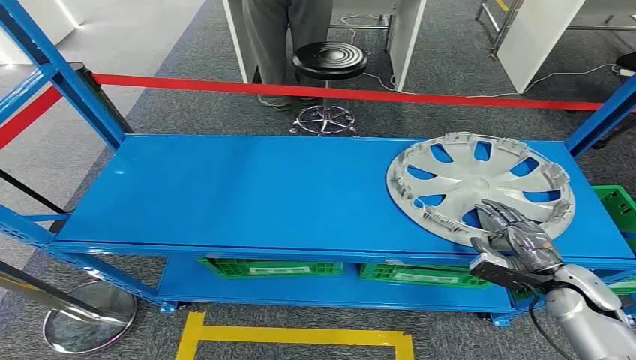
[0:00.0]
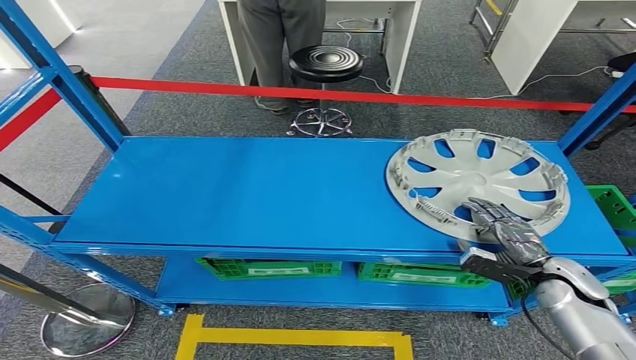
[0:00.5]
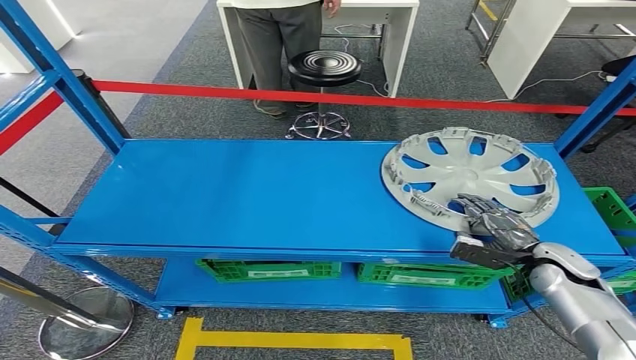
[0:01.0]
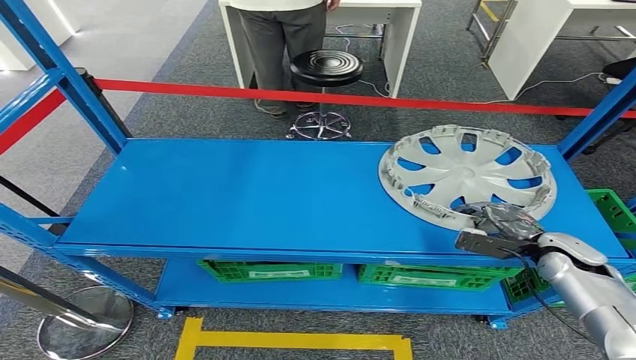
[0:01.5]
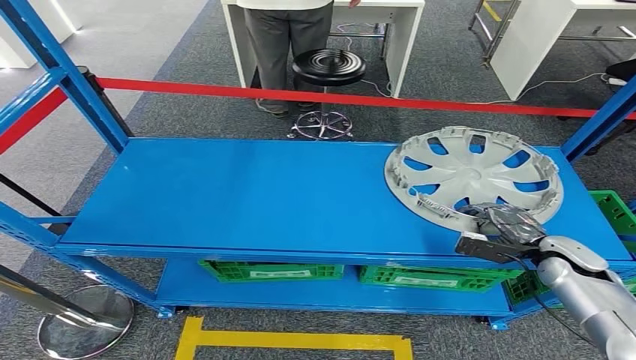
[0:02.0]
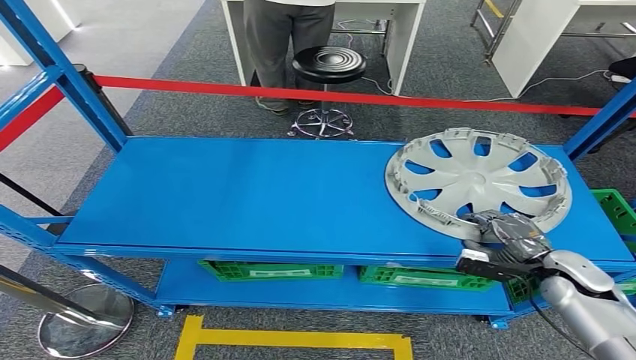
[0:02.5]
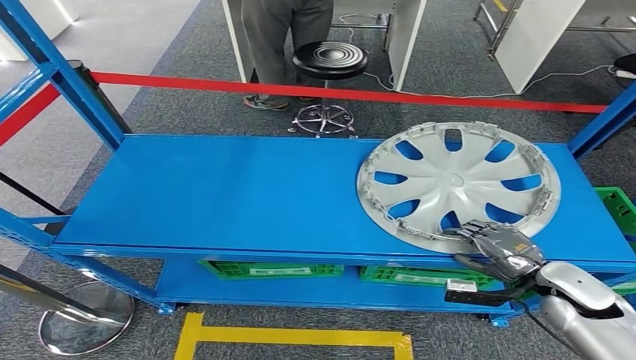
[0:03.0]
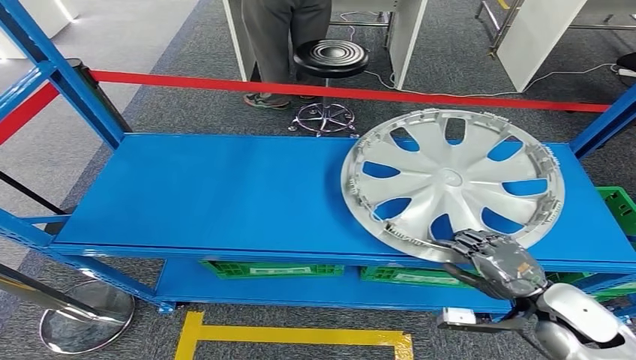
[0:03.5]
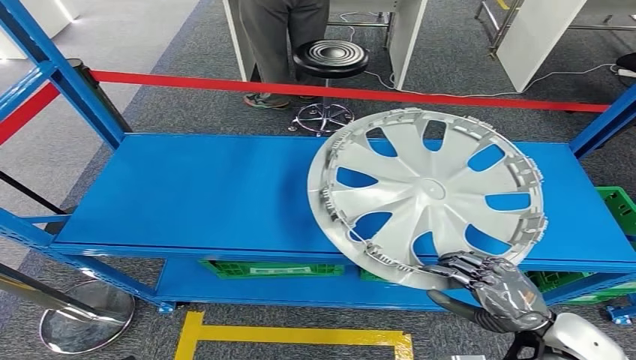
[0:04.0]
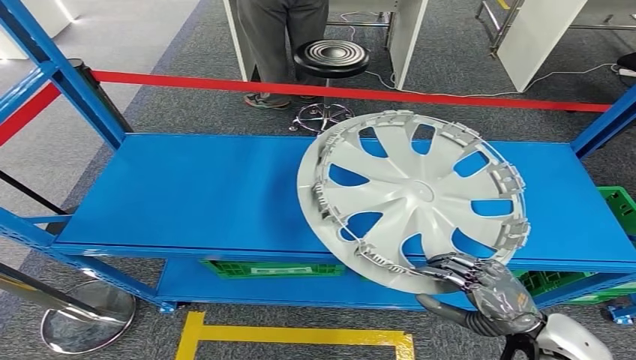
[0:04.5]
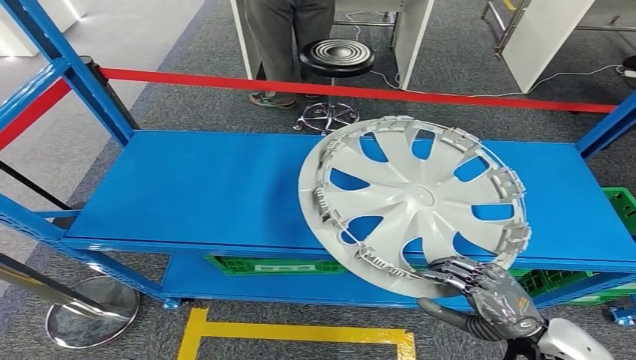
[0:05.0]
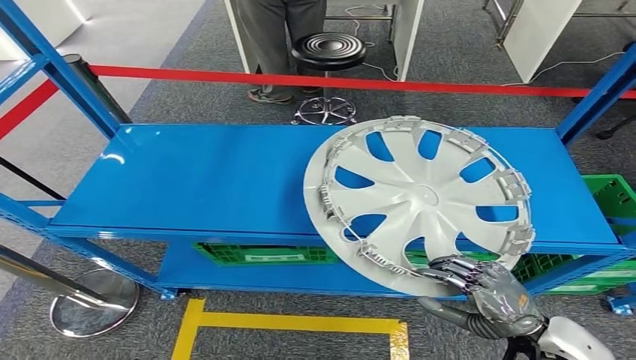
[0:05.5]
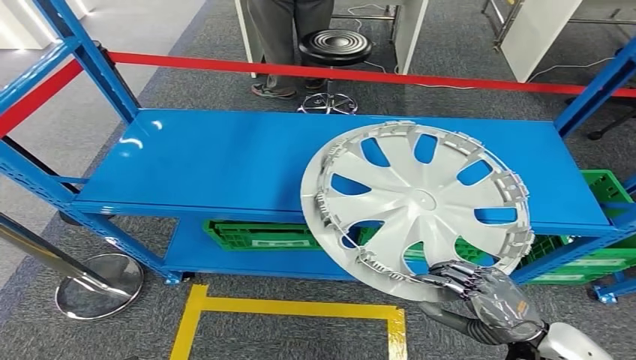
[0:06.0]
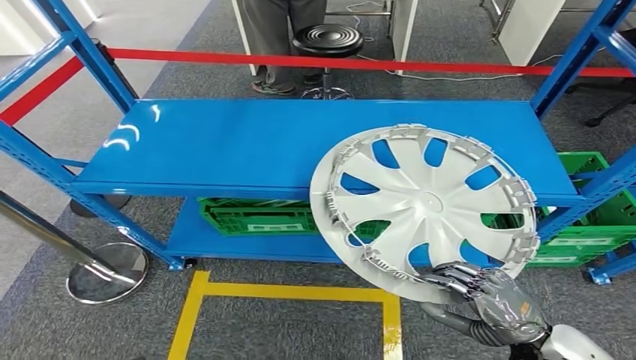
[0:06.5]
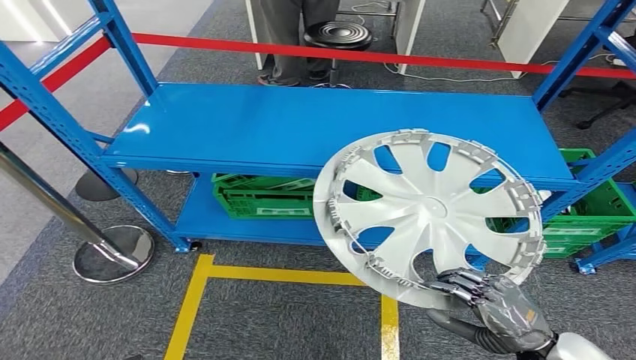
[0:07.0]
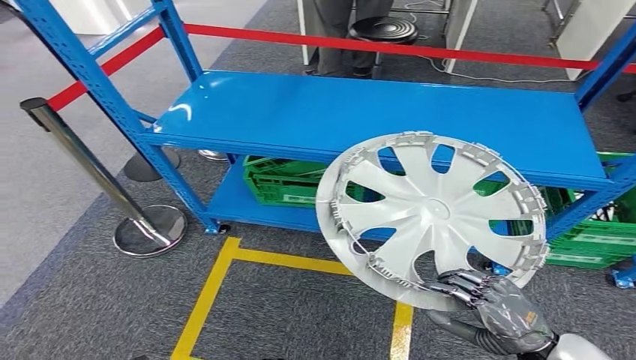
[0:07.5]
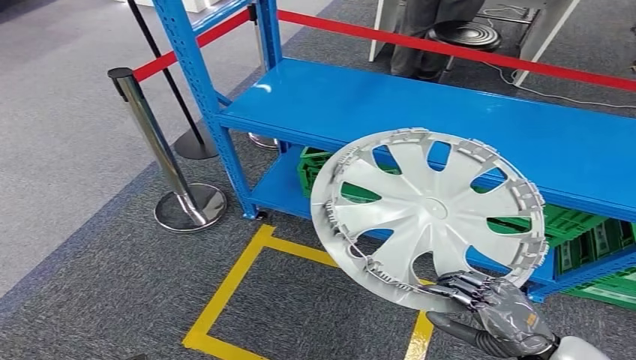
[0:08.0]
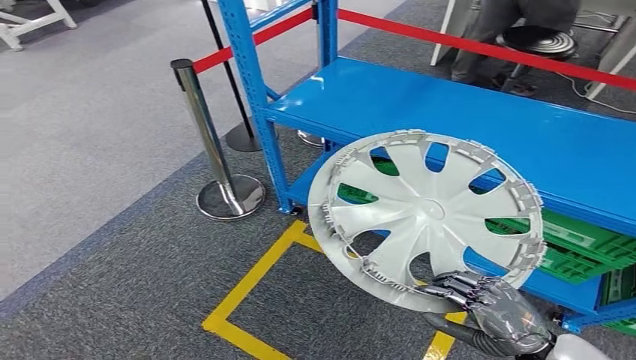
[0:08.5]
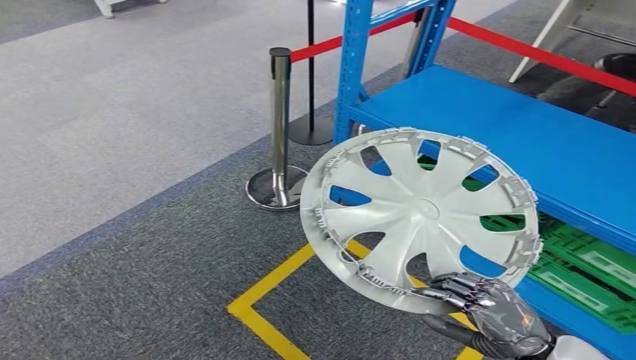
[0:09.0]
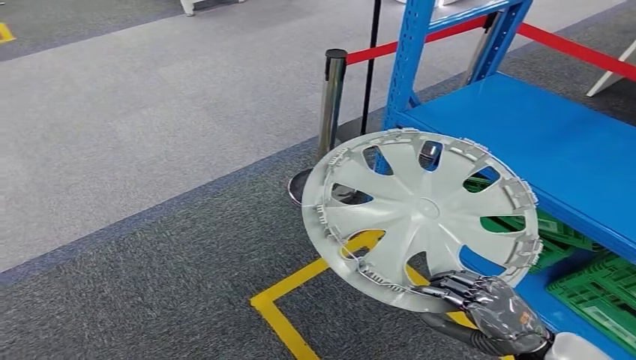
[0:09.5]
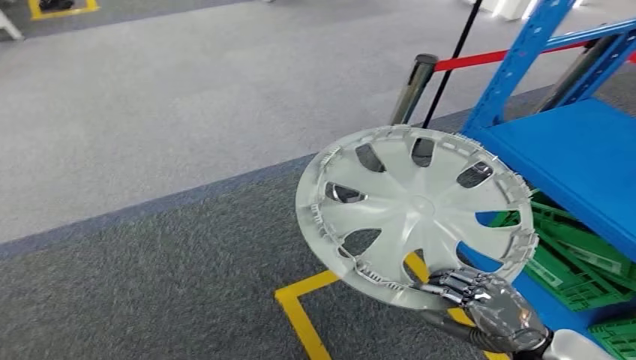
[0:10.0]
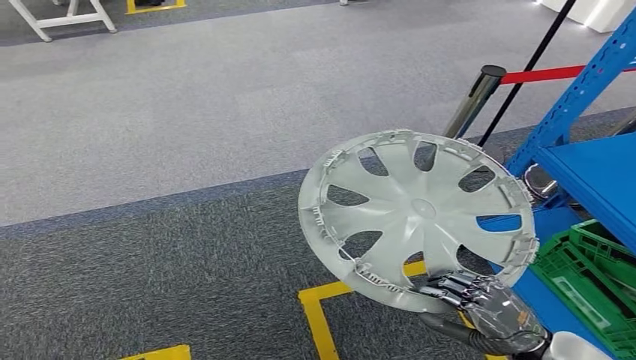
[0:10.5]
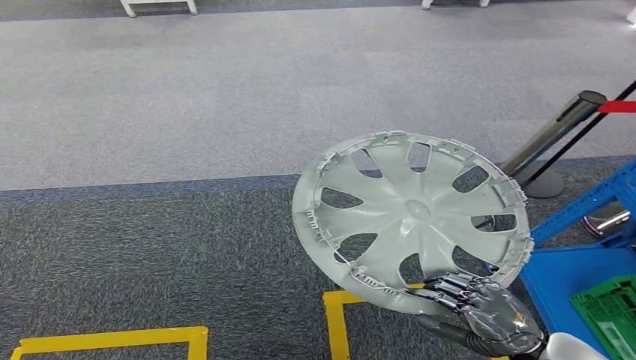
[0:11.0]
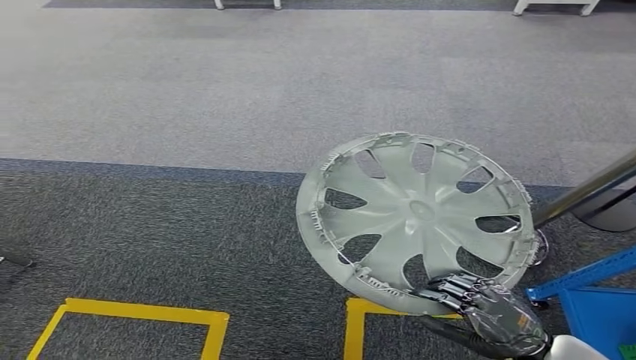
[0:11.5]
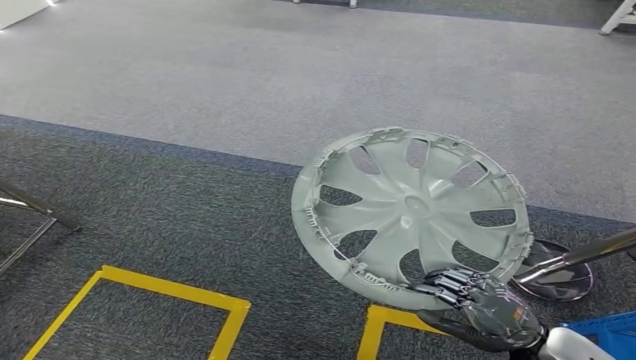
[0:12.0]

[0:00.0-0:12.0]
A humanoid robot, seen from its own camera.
Step, 0:00.0 to 0:06.5: Pick up the small component from the shelf.

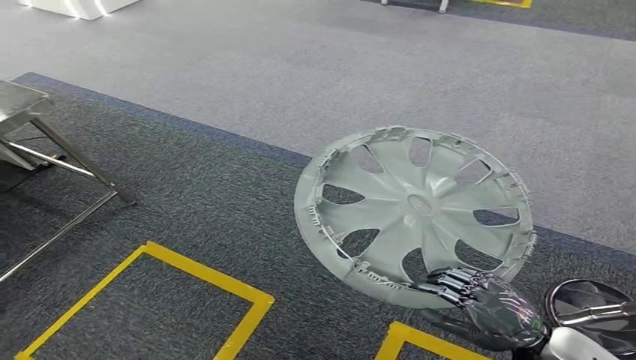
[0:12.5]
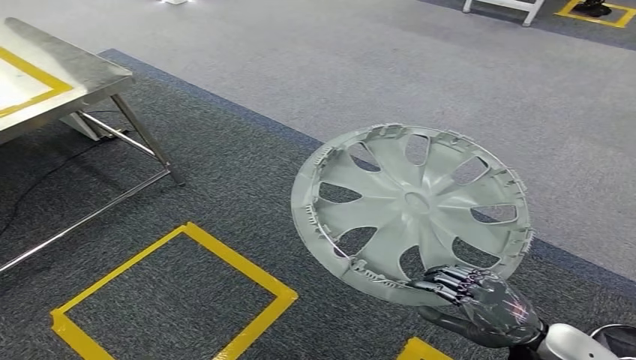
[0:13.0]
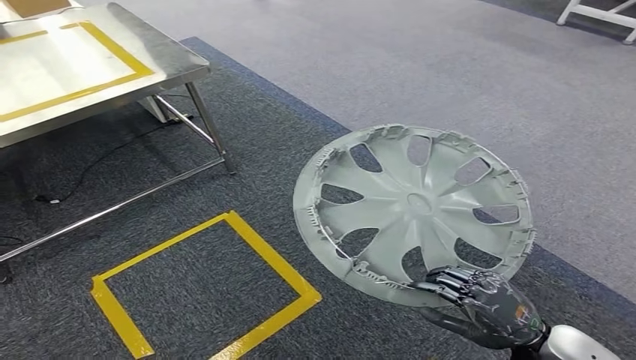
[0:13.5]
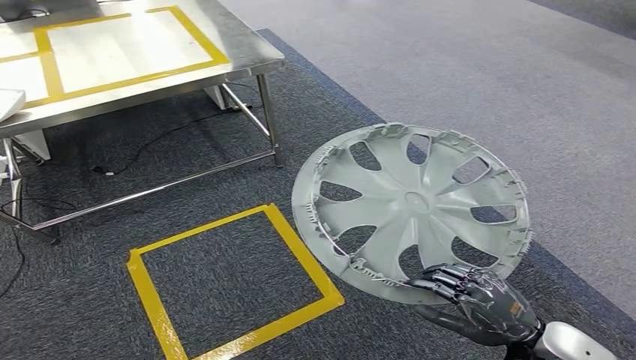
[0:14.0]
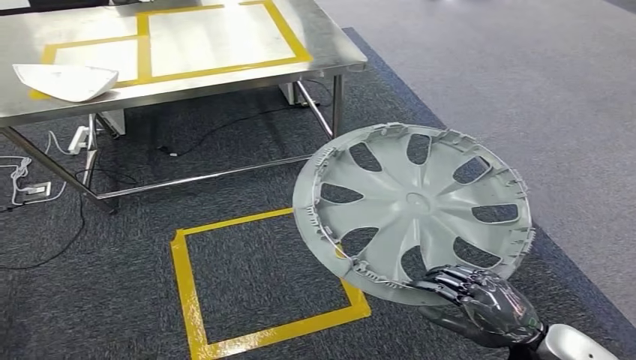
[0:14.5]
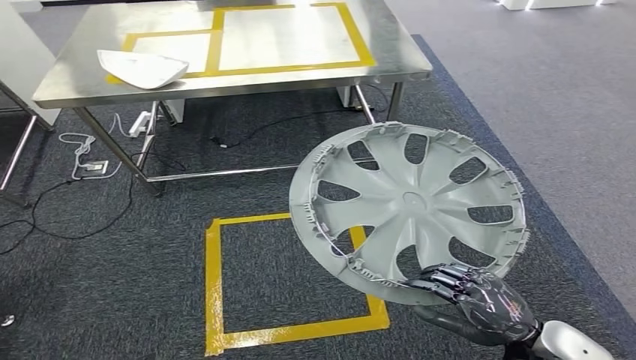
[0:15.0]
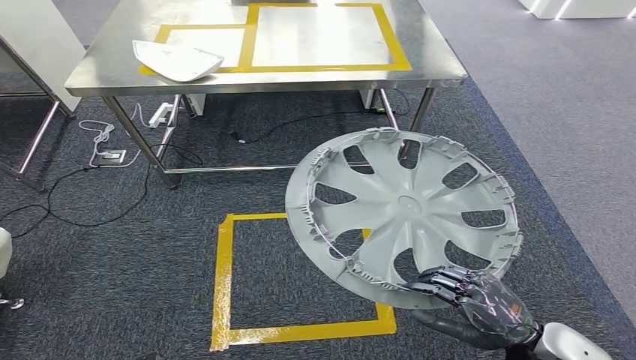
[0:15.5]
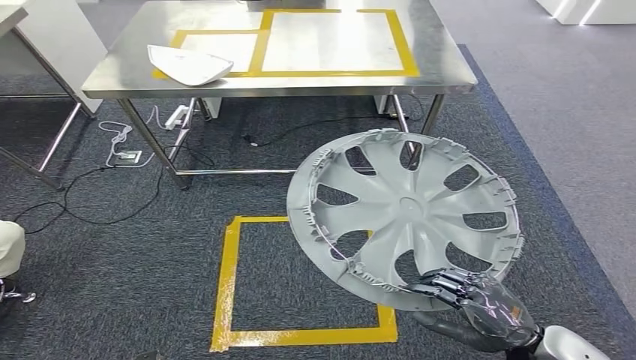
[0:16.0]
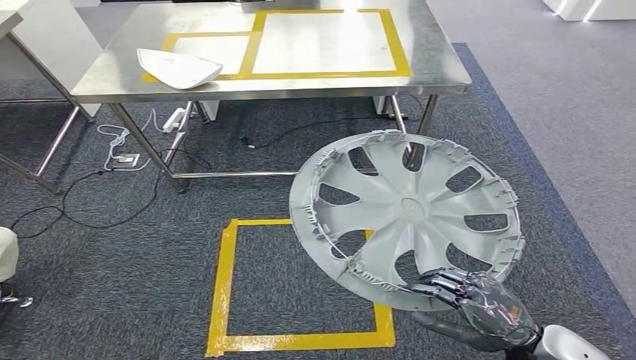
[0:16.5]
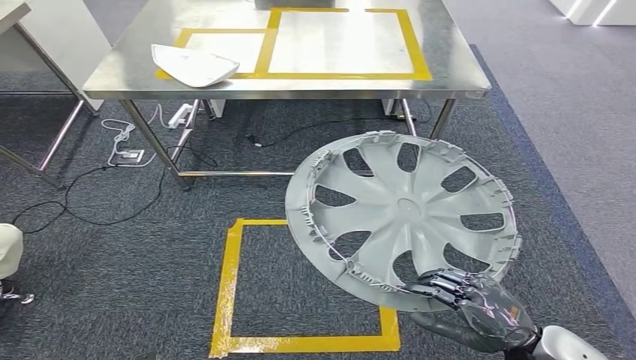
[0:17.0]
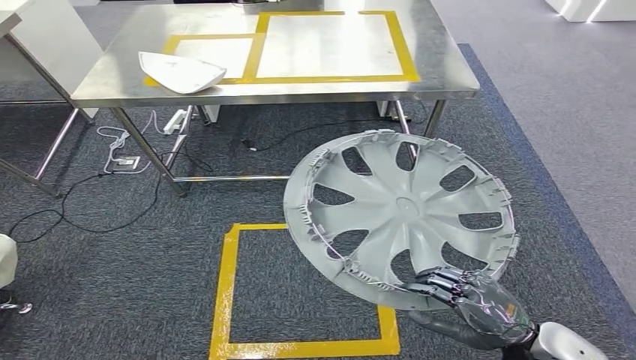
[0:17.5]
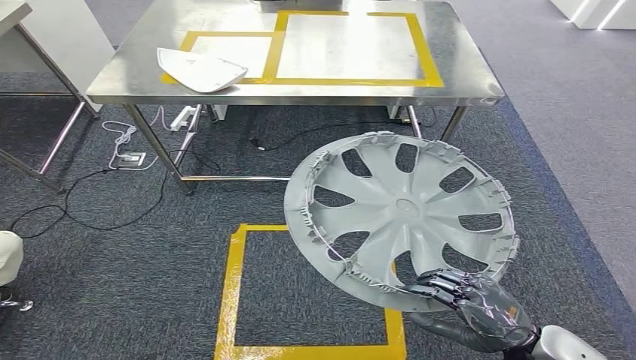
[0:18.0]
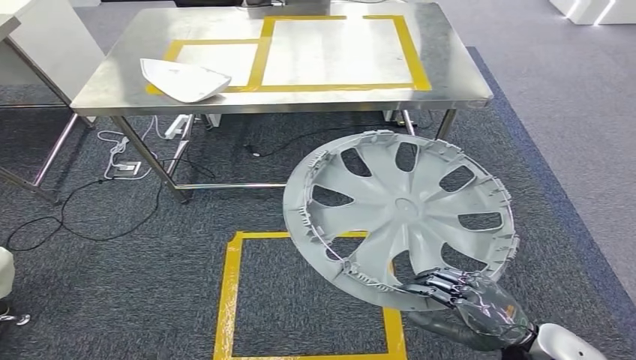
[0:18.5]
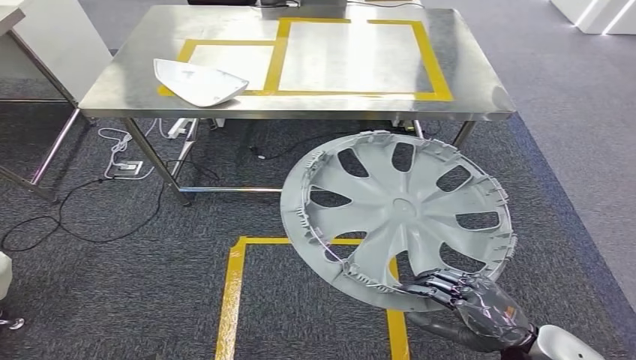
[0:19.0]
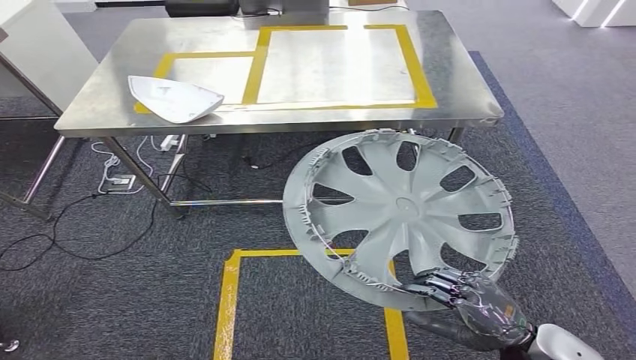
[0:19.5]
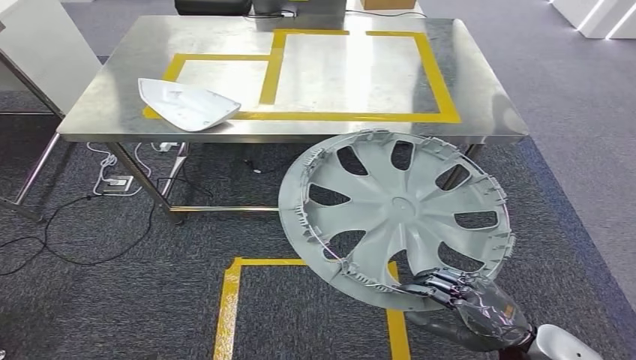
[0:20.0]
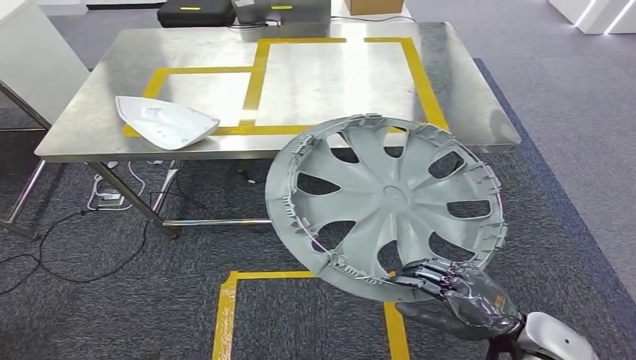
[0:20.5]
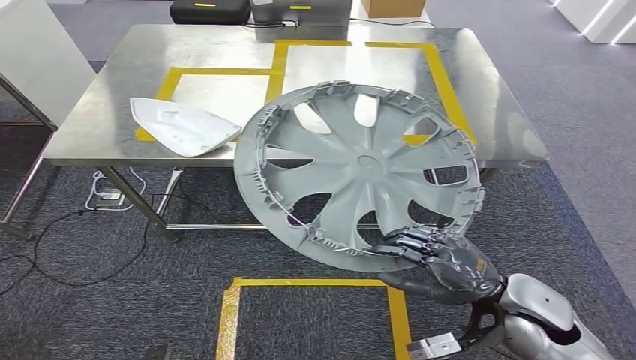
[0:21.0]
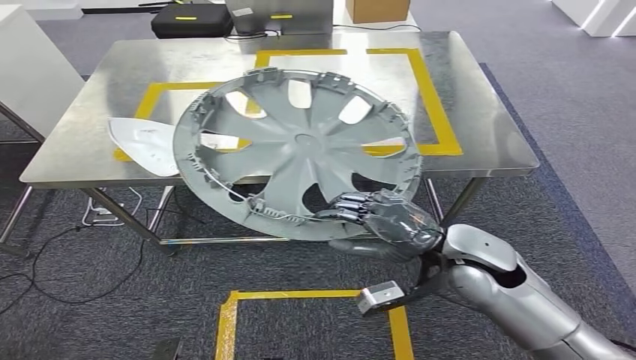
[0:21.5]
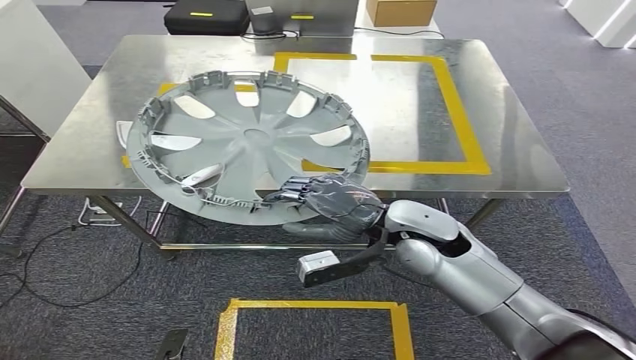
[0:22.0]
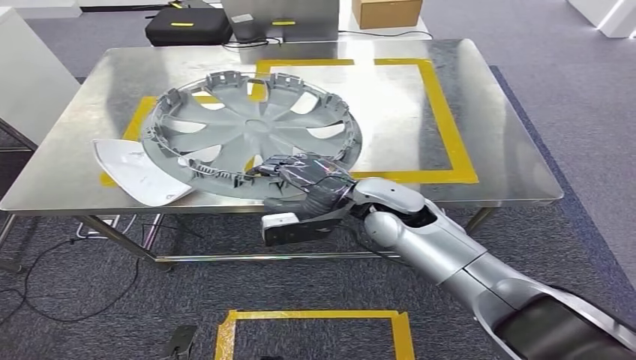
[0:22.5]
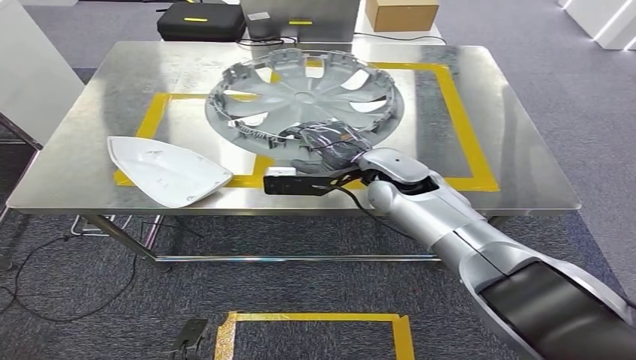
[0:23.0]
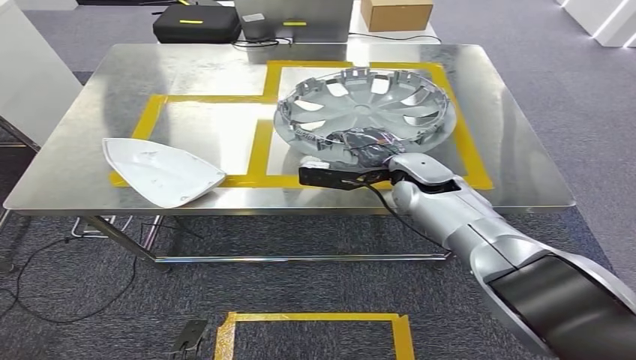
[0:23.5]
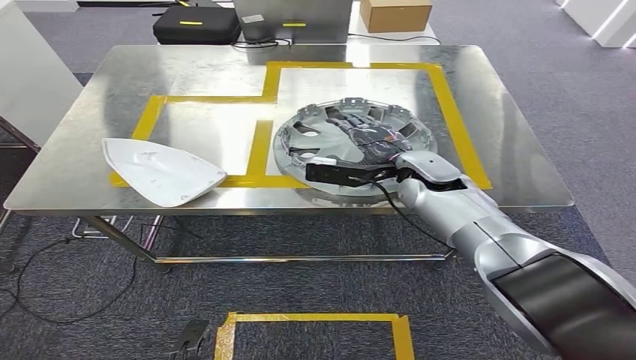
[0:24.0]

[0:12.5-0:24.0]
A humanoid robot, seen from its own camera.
Step, 0:12.5 to 0:18.5: Move the small component to the workbench.
